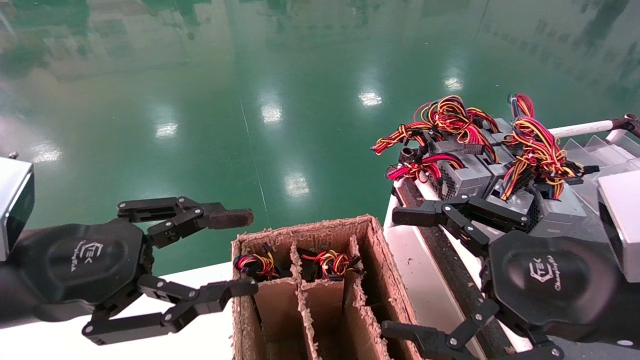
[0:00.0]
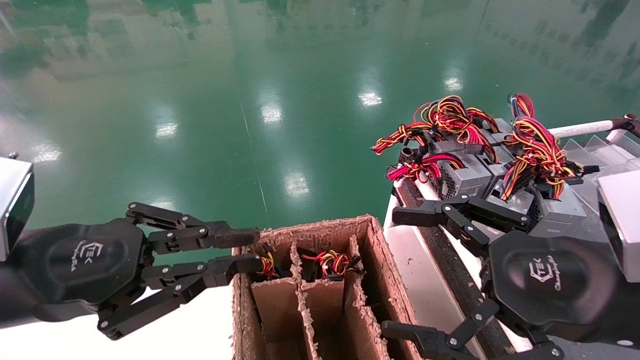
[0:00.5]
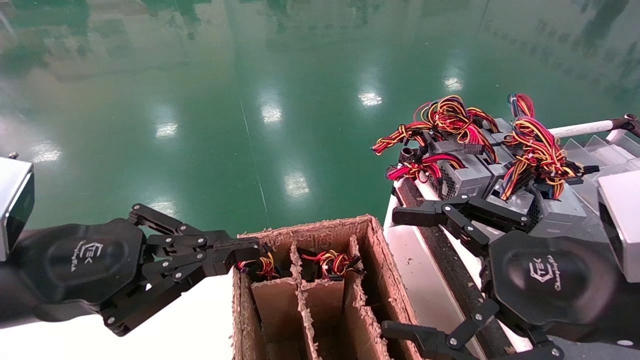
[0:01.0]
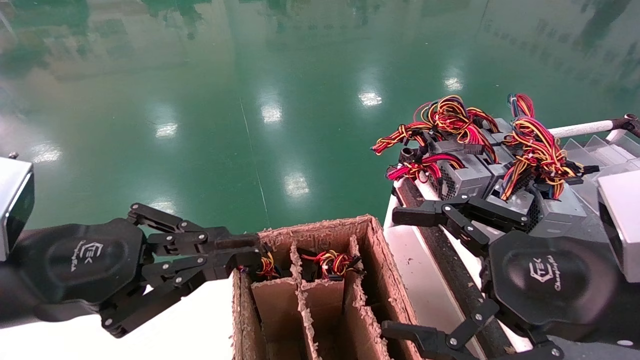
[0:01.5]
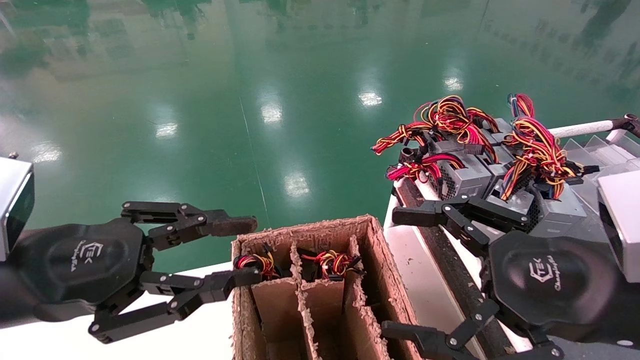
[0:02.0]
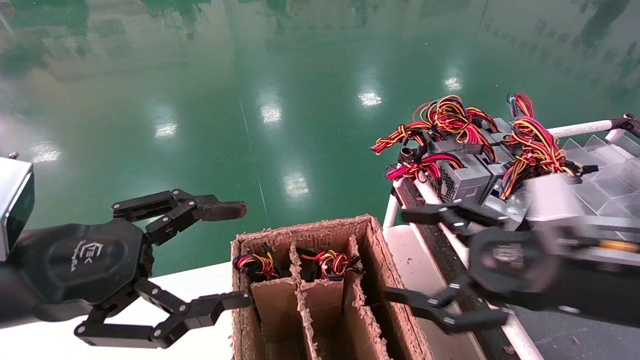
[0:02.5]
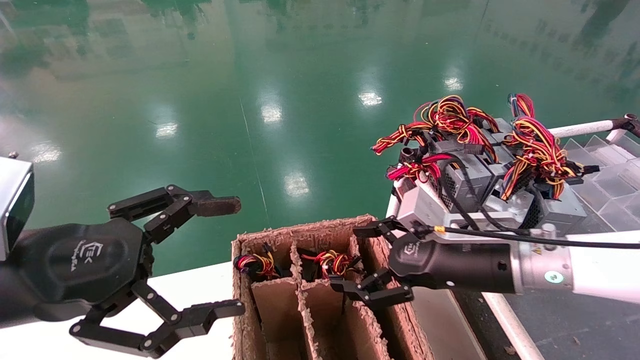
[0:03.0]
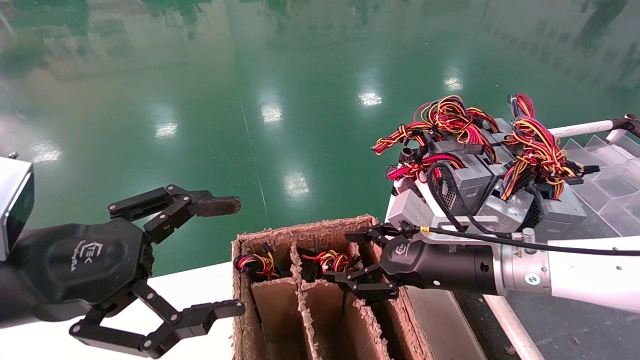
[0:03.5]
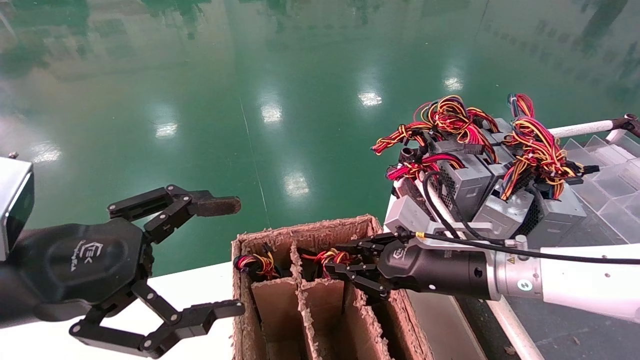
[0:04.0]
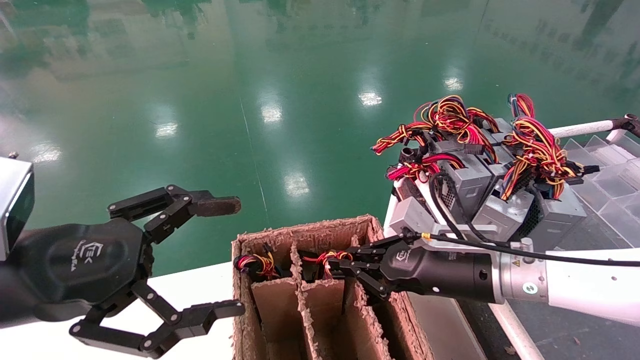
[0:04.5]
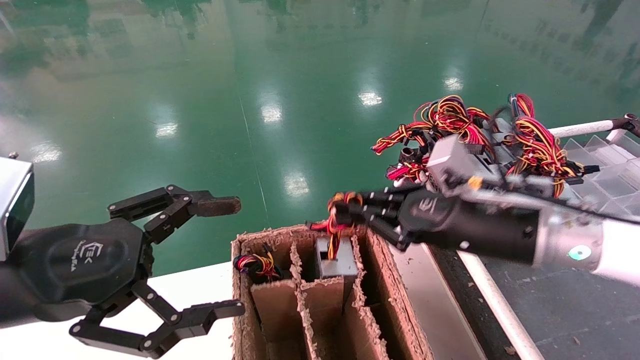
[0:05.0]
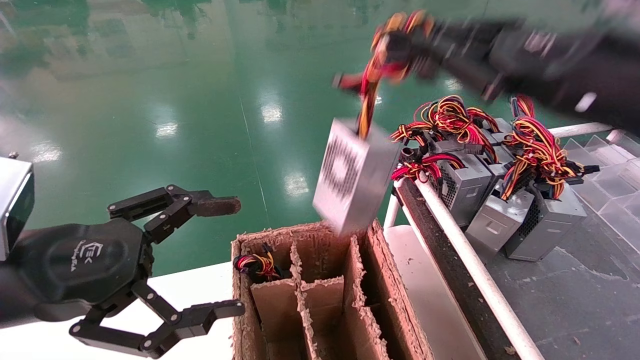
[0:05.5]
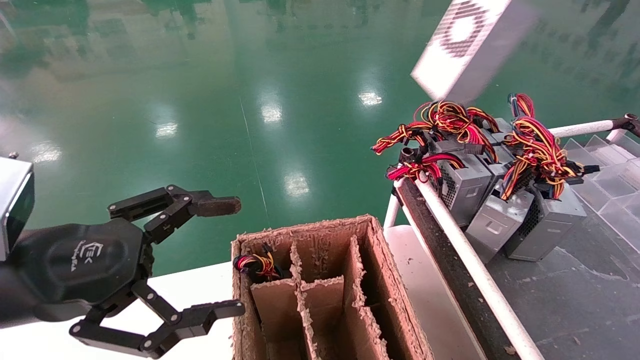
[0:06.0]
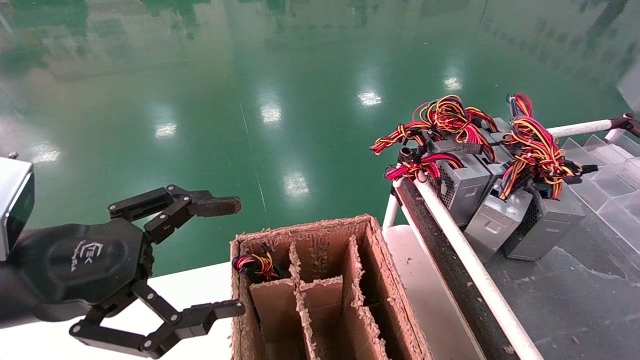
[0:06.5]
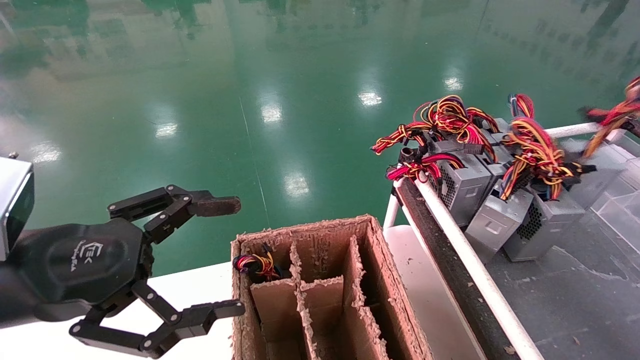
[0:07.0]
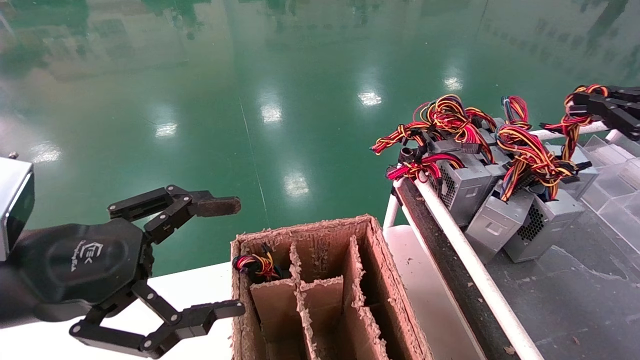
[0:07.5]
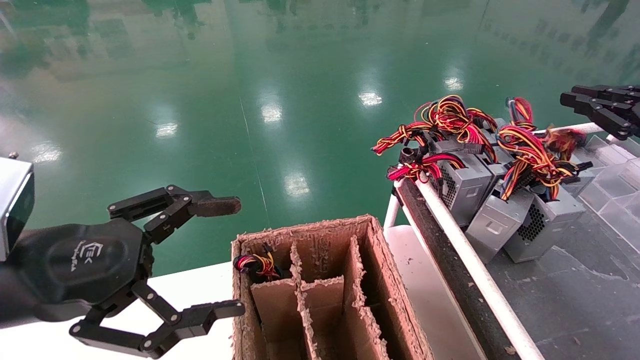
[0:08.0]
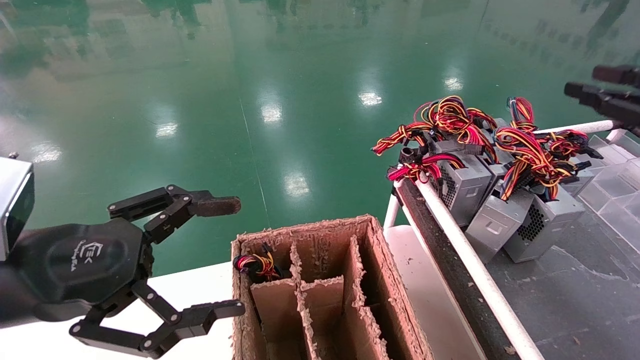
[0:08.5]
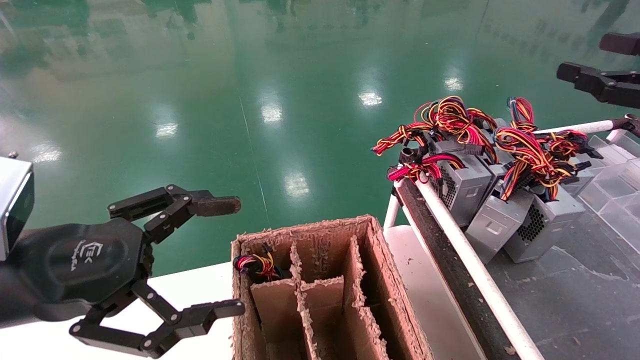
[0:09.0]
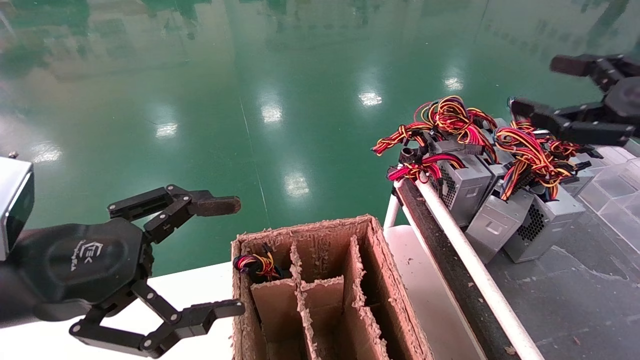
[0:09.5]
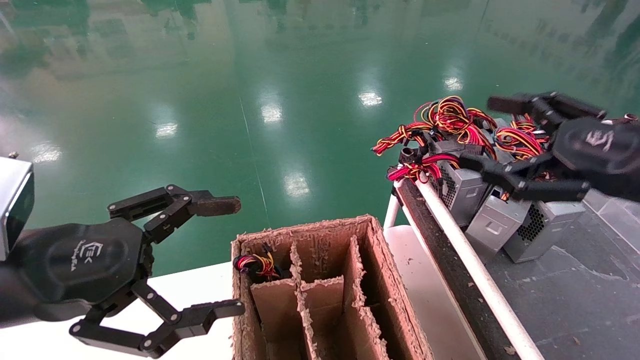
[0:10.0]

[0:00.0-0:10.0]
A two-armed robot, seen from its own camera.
Step, 0:01.0 to 0:04.5: Grab and lift the power supply from the large box.
Step, 0:05.0 to 0:08.0: Place the power supply on the operating table.
0:00.0 to 0:02.0: The two grippers keep their place.
0:02.0 to 0:04.0: The right gripper travels forward, downward and to the left by roughly 20 cm, and closes its fingers. Meanwhile the left gripper opens its fingers.
0:04.0 to 0:06.0: The right gripper heads upward and to the right, covering approximately 40 cm, and closes its fingers.
0:06.0 to 0:08.0: The right gripper shifts roughly 20 cm downward, to the right and forward.
0:08.0 to 0:10.0: The right gripper shifts some 15 cm to the left and backward, and opens its fingers.

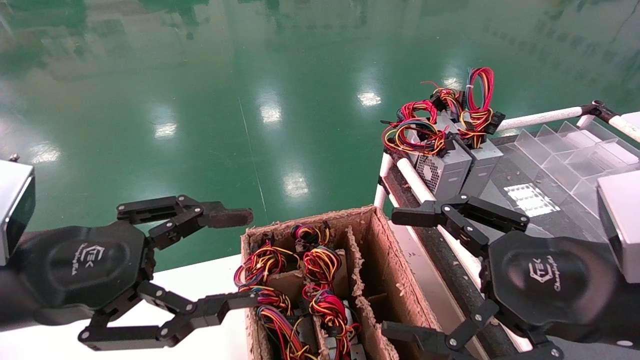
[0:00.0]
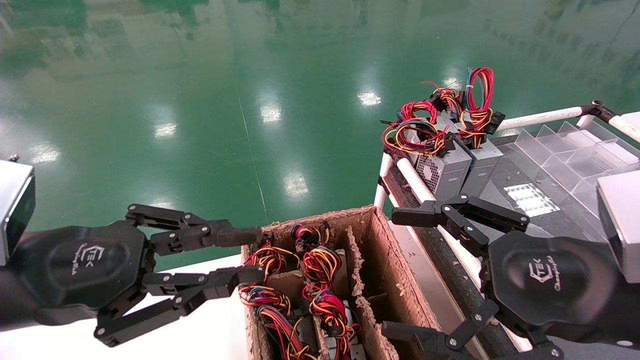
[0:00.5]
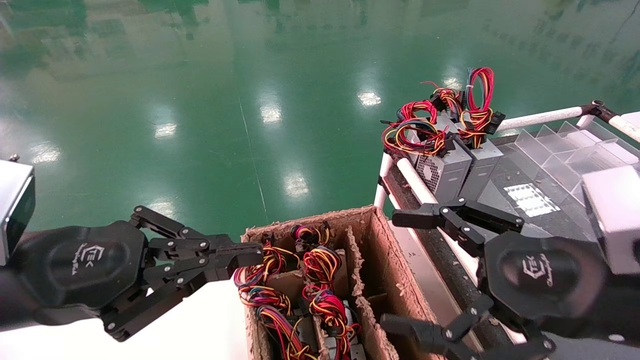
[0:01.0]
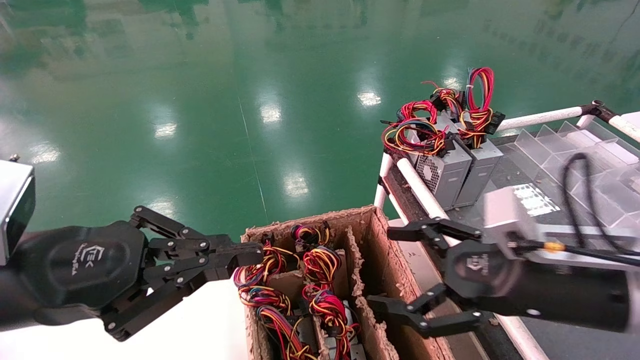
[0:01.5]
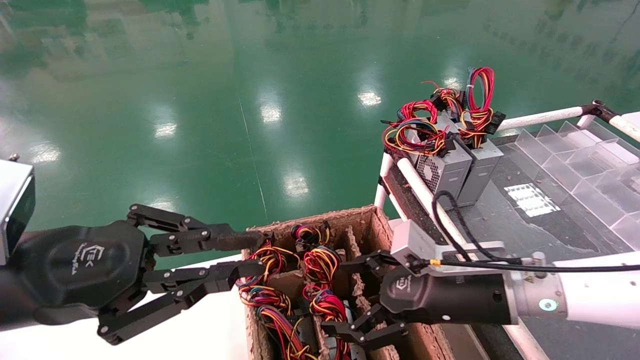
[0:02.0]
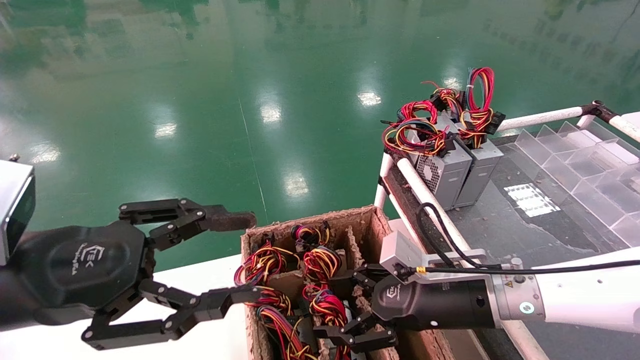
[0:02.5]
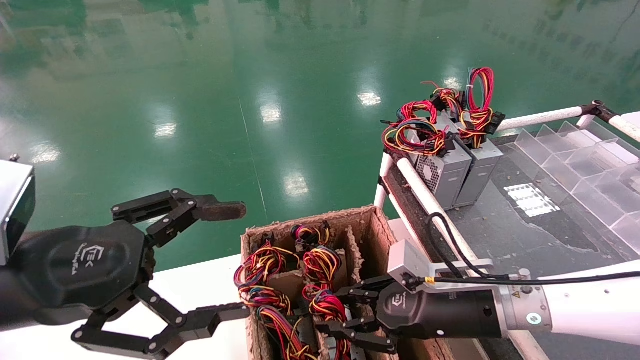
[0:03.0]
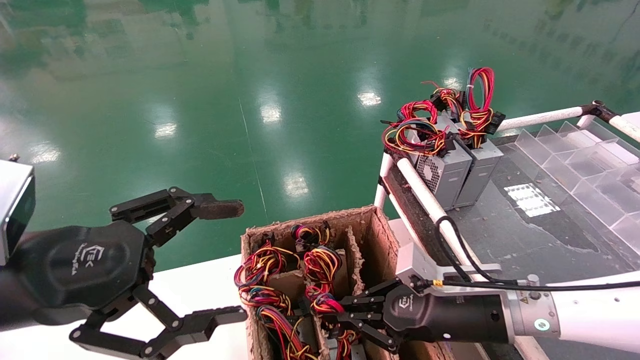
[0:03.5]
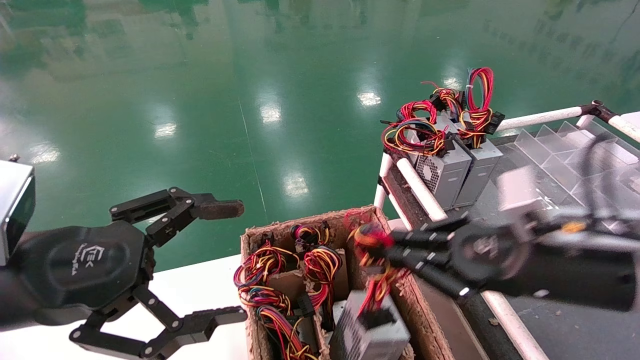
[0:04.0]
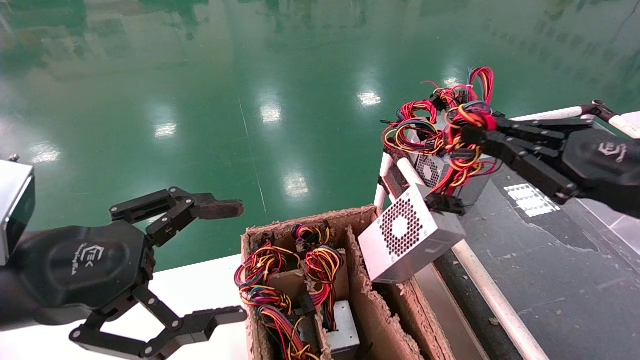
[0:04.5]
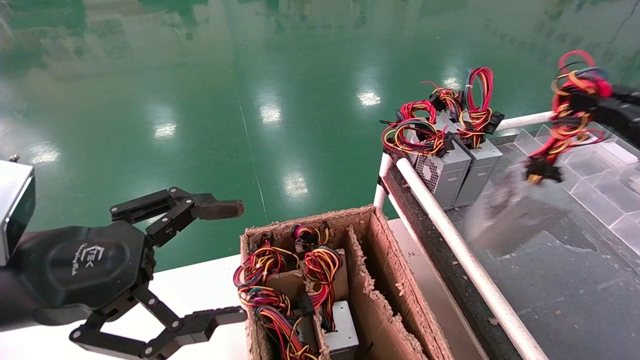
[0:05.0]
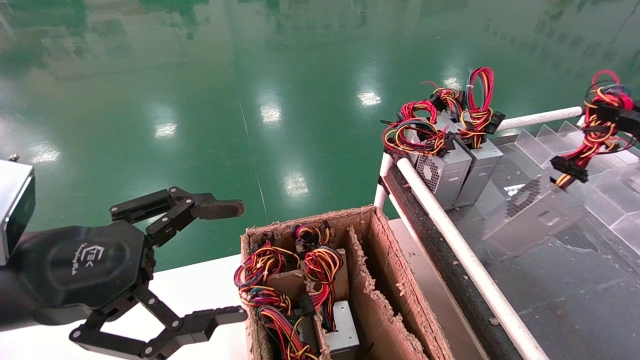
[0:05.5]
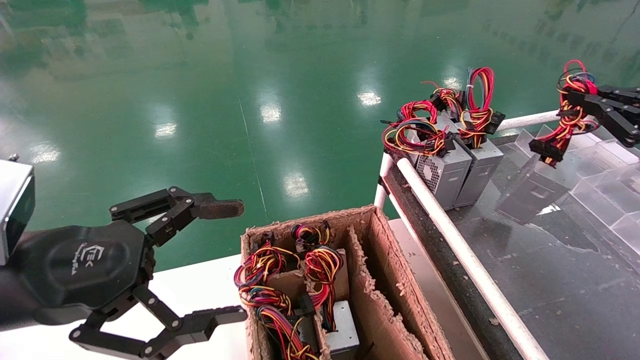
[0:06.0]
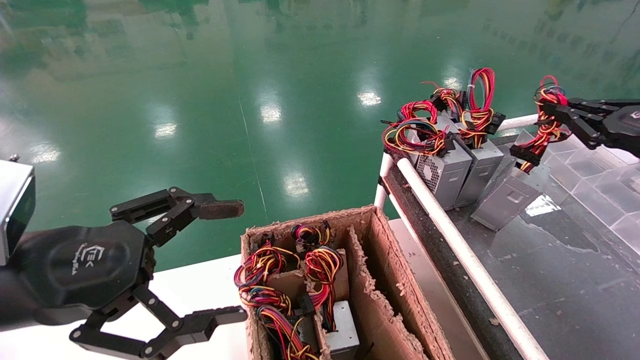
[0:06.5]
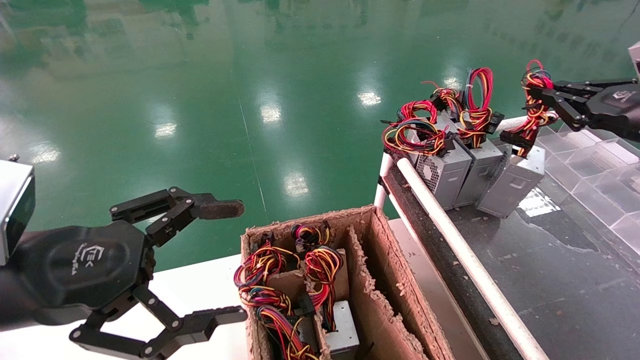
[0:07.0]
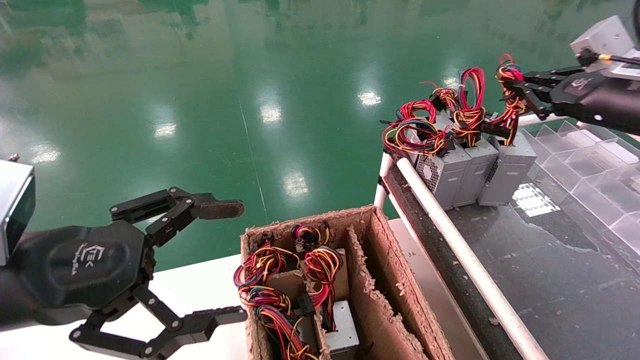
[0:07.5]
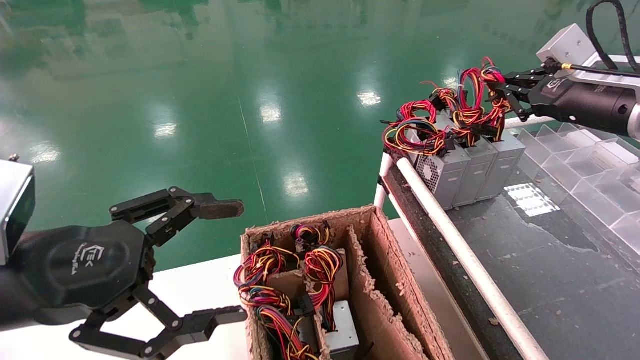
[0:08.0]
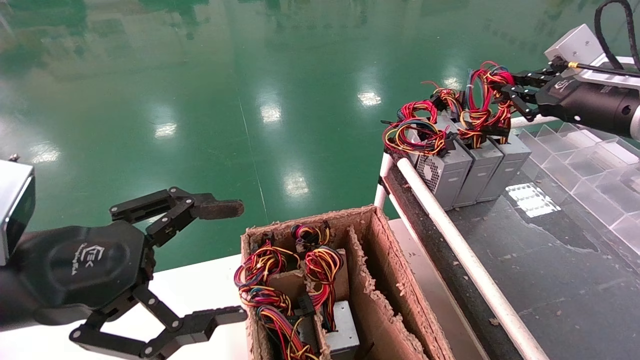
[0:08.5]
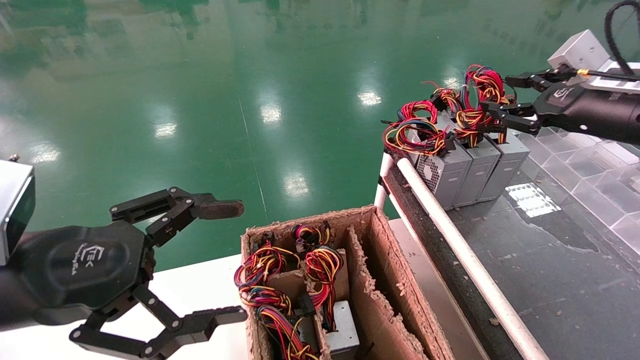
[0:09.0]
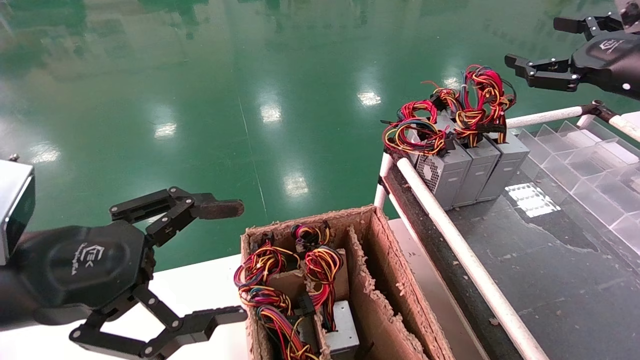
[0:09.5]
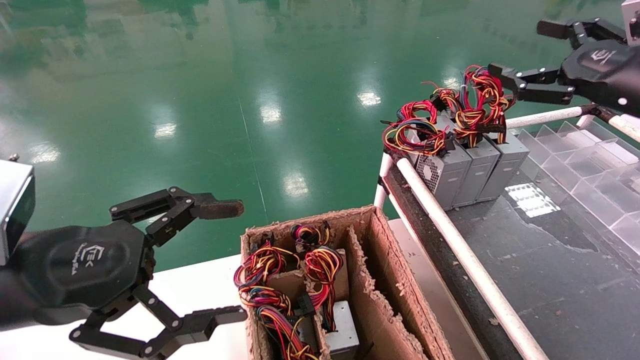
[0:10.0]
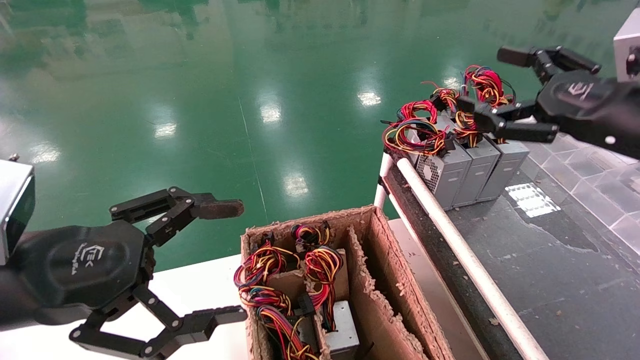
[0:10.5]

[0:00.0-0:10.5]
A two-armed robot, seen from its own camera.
Step, 0:01.0 to 0:03.0: Grab and lift the power supply from the large box.
Step, 0:03.5 to 0:08.5: Place the power supply on the operating table.
0:00.0 to 0:02.0: The left gripper closes its fingers, while the right gripper moves forward, downward and to the left, approximately 15 cm.
0:02.0 to 0:04.0: The left gripper opens its fingers, while the right gripper moves to the right and upward, about 10 cm, and closes its fingers.
0:04.0 to 0:06.5: The right gripper is displaced to the right and upward by approximately 20 cm.
0:06.5 to 0:08.5: The right gripper is displaced forward and to the left by roughly 10 cm.
0:08.5 to 0:10.5: The right gripper travels backward by approximately 10 cm, and opens.
